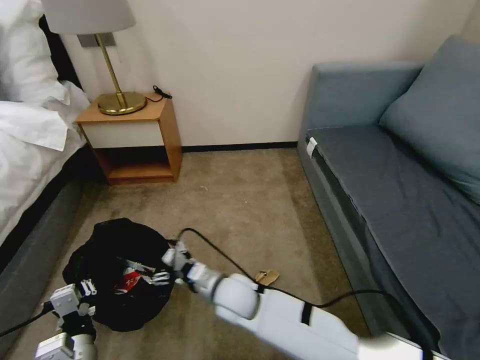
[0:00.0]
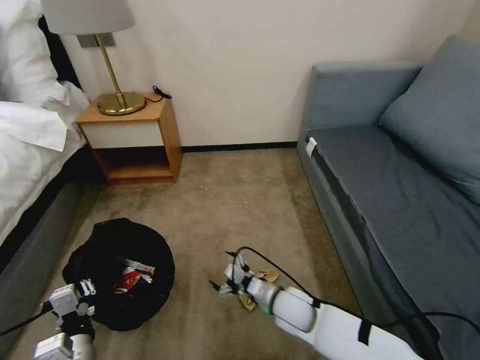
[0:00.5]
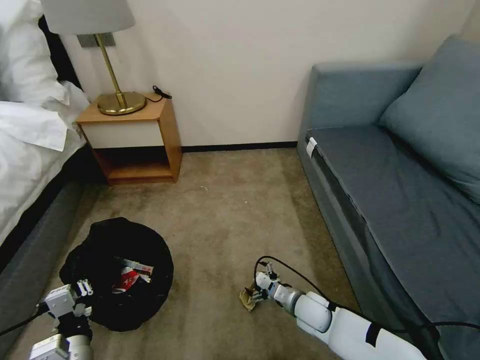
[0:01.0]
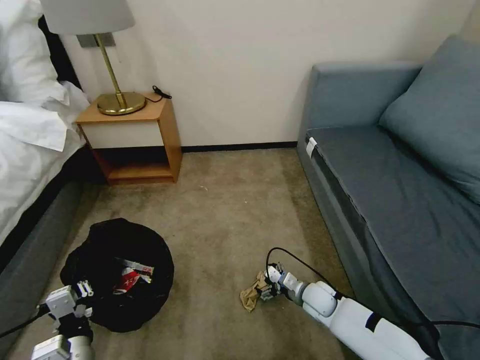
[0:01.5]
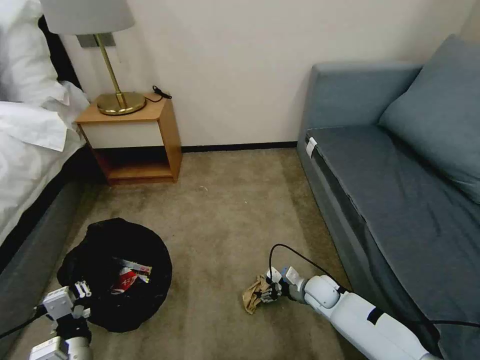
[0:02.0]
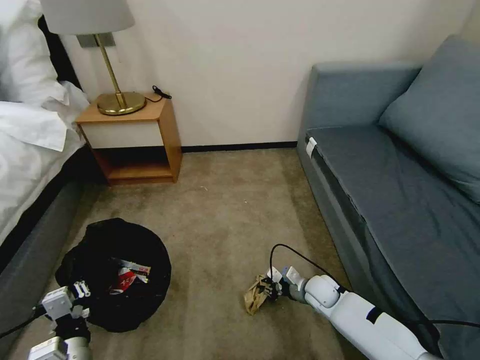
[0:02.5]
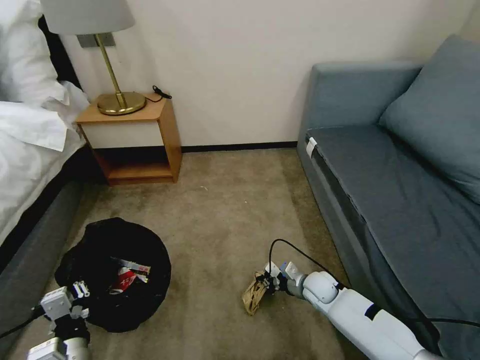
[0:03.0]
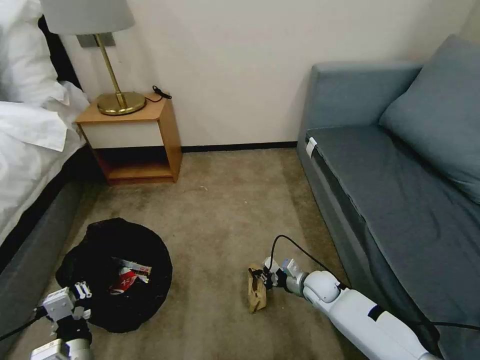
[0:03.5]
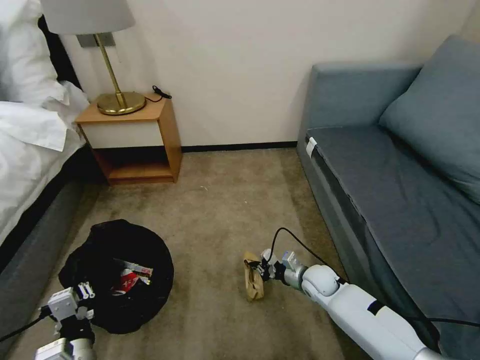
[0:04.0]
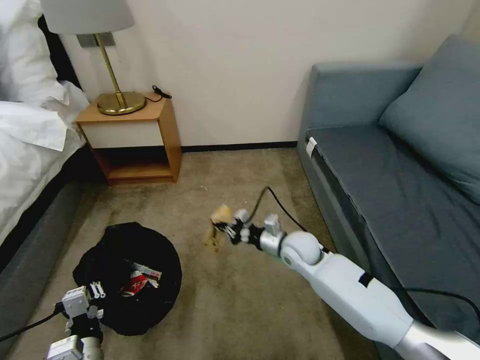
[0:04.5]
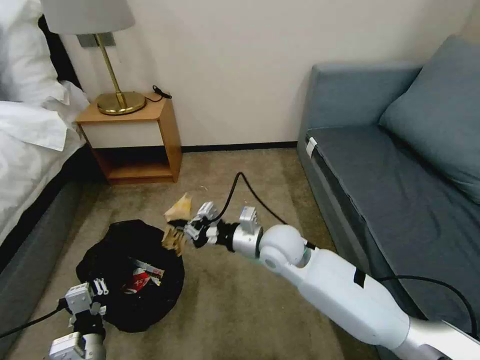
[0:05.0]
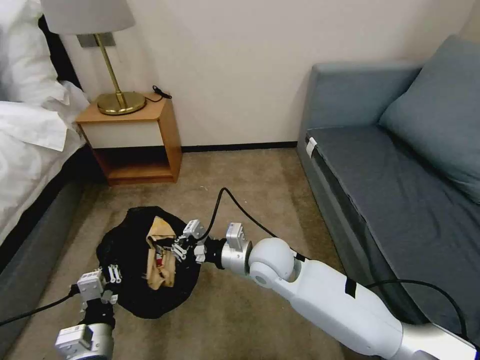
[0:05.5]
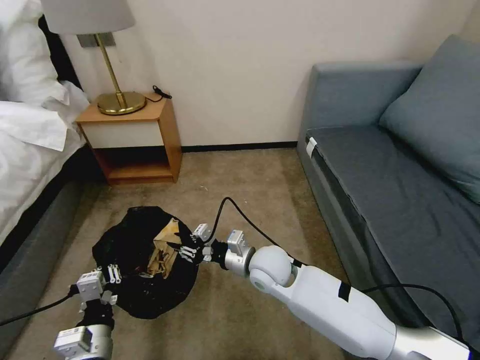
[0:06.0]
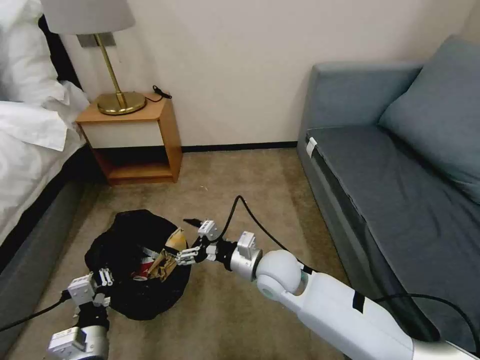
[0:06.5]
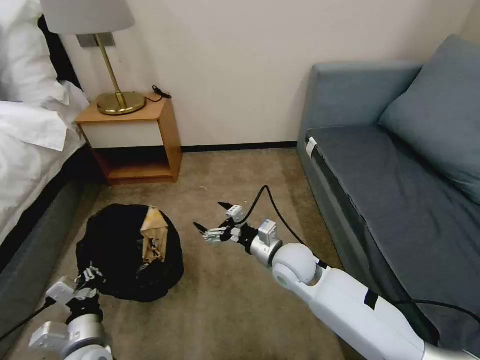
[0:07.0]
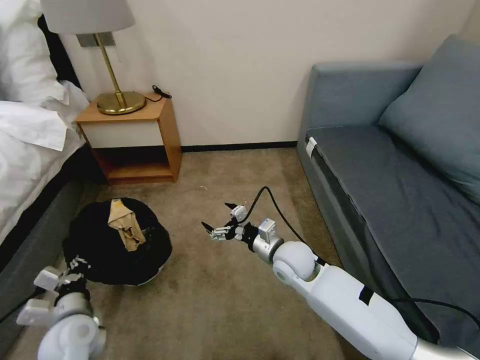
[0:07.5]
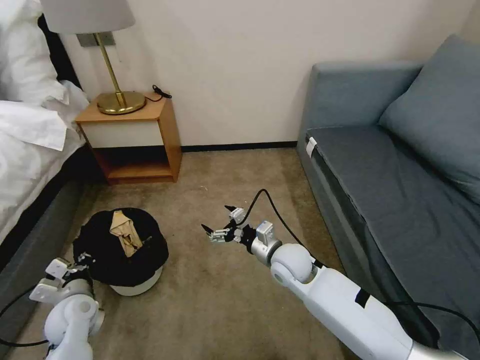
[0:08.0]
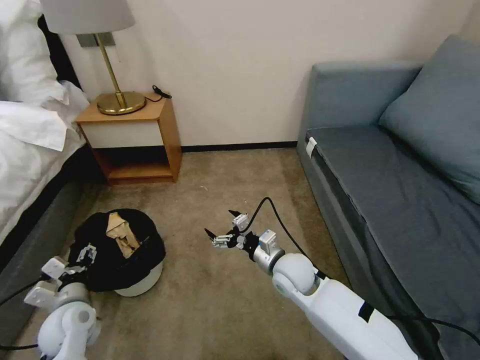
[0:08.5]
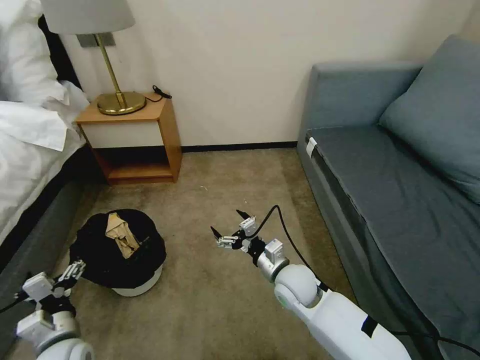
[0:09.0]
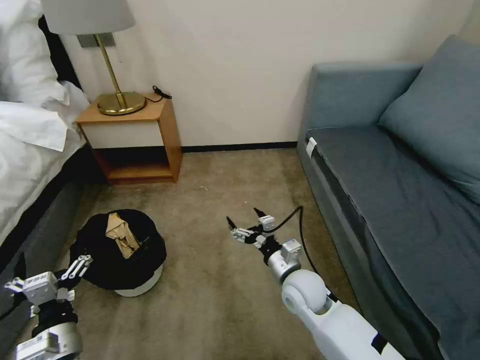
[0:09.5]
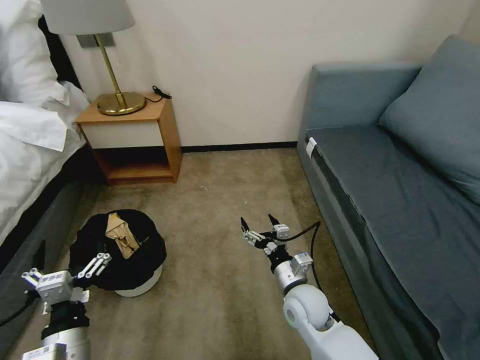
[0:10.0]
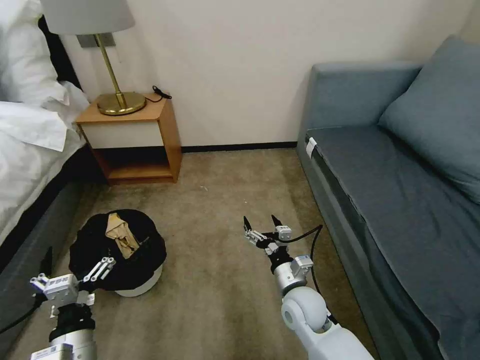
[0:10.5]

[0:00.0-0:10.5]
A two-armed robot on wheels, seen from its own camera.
Task of the whole recording: Pick up the trash bin, then pick up the garbage on the floor and place it into the trash bin.
0:00.0 to 0:02.0: The right gripper is displaced to the right and downward by roughly 30 cm.
0:02.0 to 0:04.0: The right gripper closes.
0:04.0 to 0:06.5: The right gripper moves upward and to the left, roughly 25 cm, and opens up.
0:06.5 to 0:08.5: The left gripper moves forward and to the left, roughly 15 cm, and opens. Meanwhile the right gripper travels downward by some 5 cm.
0:08.5 to 0:10.5: The left gripper is displaced backward and to the right by about 15 cm; the right gripper heads backward, covering approximately 5 cm.

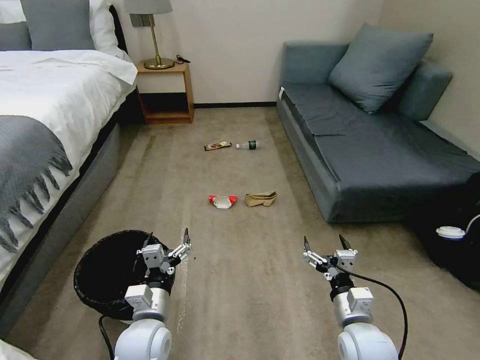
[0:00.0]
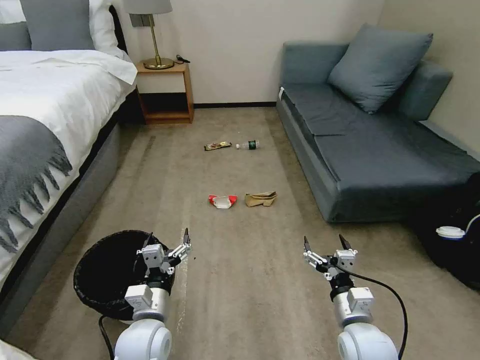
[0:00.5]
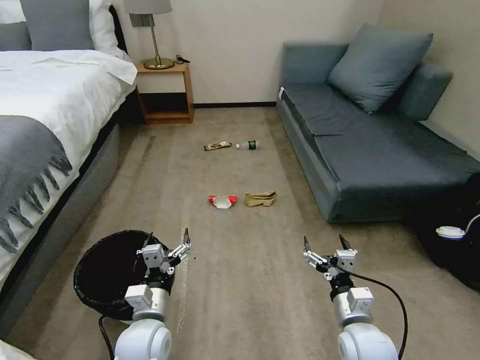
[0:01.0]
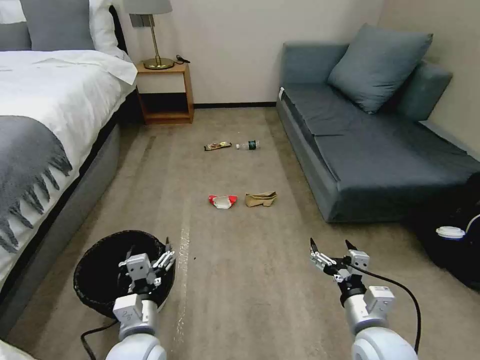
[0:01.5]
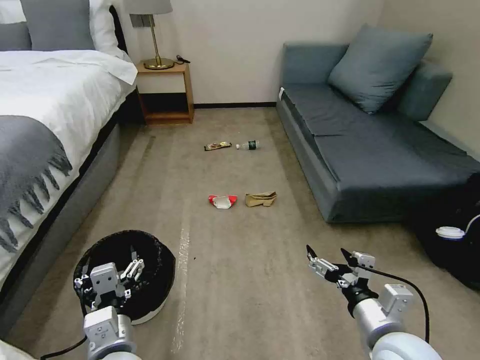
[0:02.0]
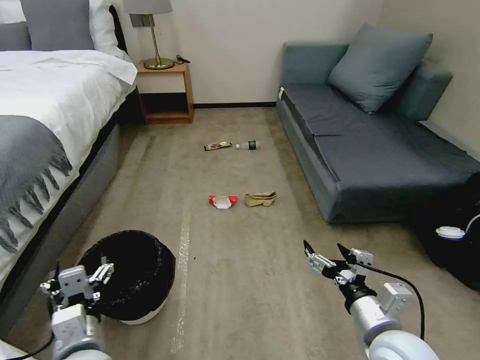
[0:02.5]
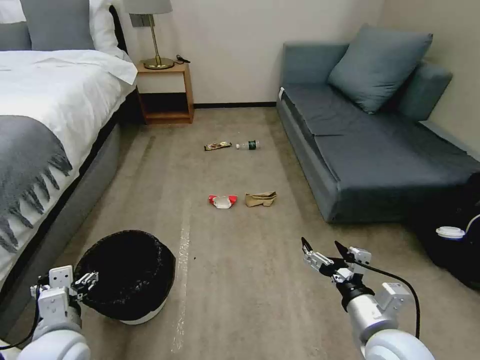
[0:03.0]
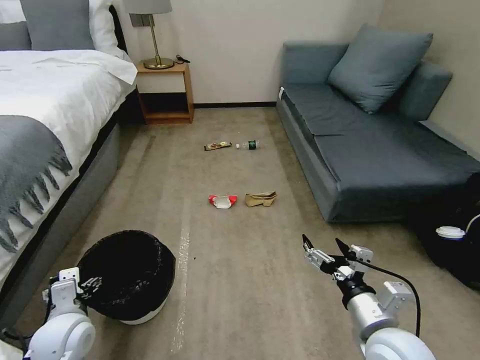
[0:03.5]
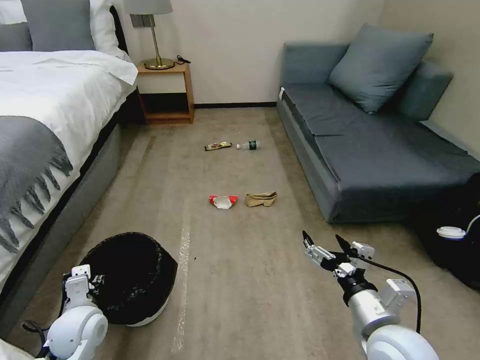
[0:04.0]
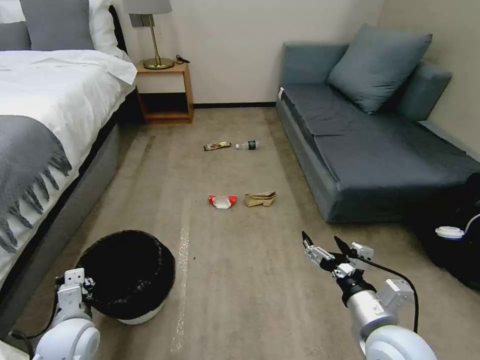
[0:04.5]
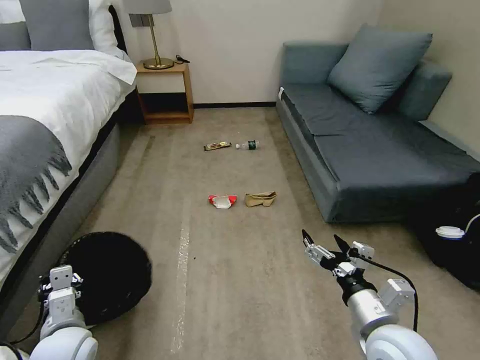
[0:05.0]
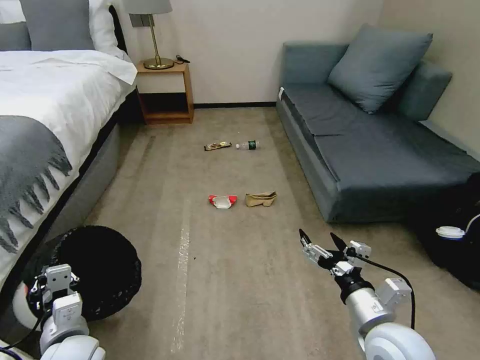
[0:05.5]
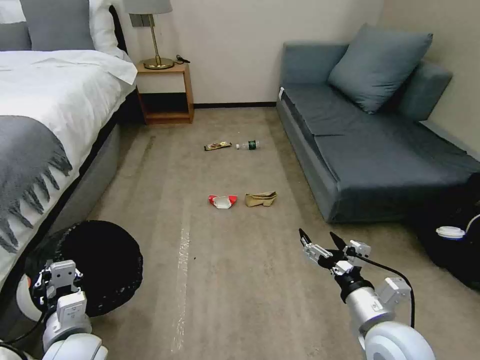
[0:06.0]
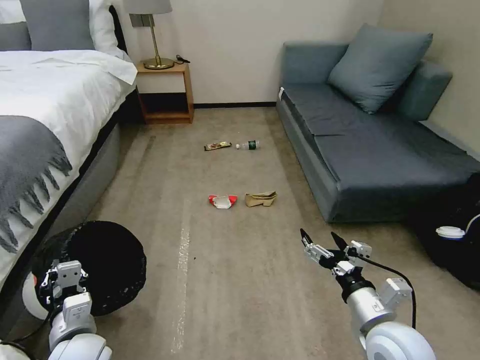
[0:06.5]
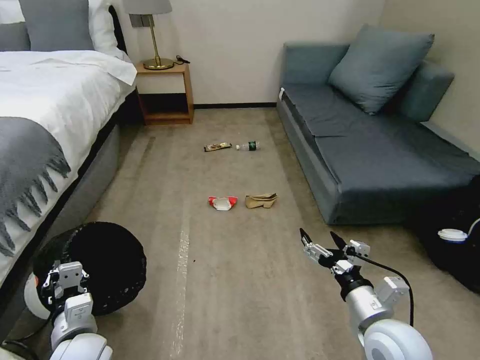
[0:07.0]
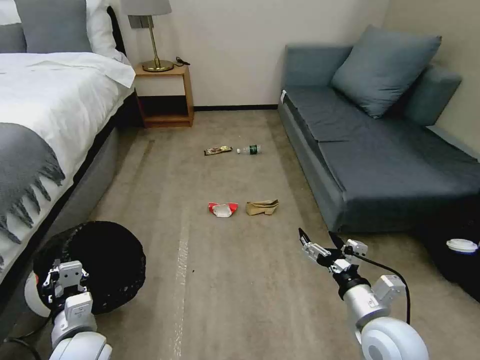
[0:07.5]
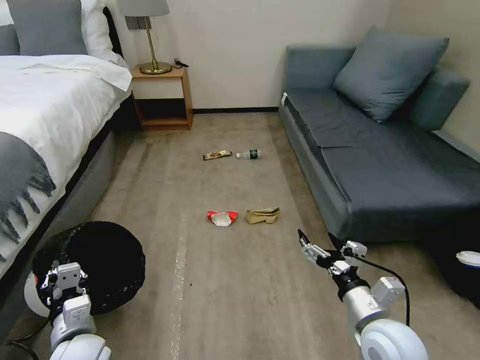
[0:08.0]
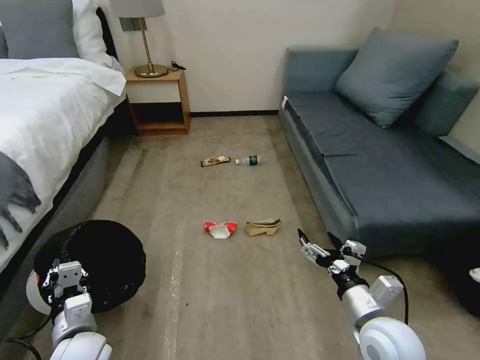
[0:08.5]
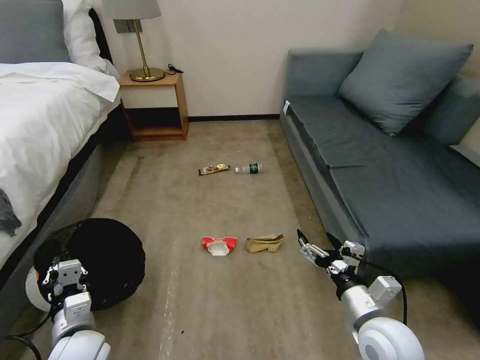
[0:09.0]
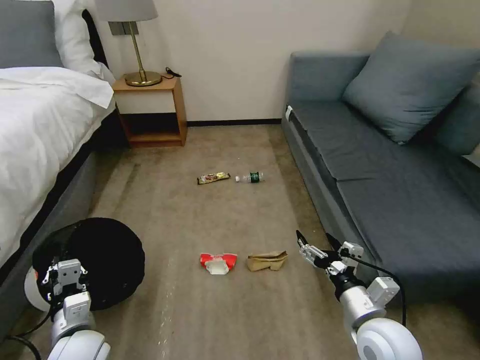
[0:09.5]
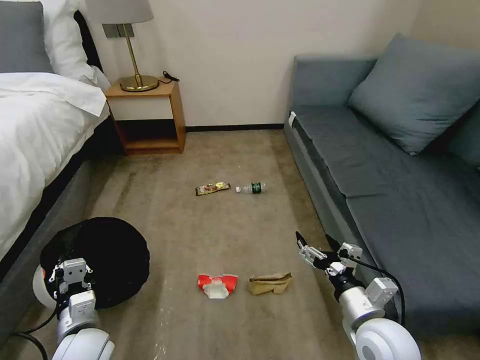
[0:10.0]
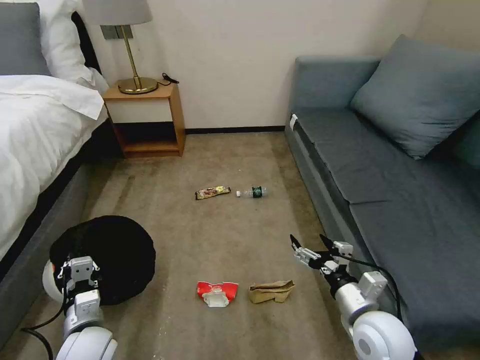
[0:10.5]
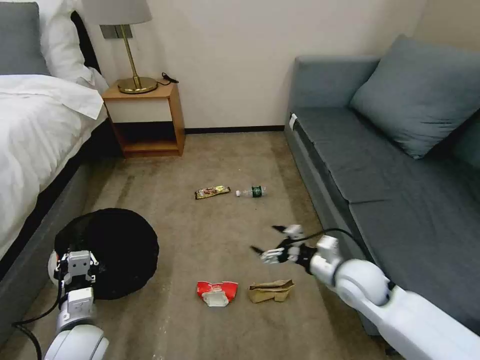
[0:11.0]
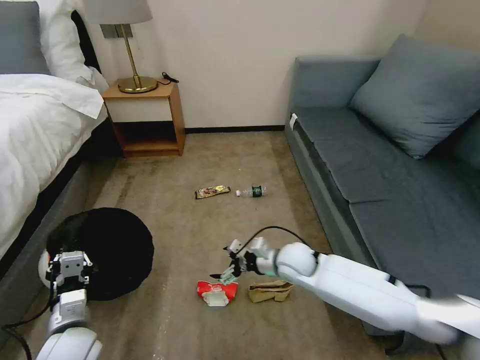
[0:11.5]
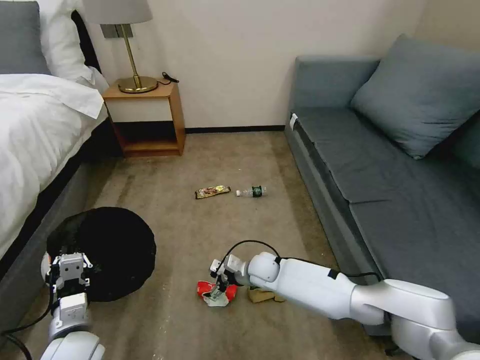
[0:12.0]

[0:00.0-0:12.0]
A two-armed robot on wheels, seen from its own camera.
Task of the whole recording: Pick up the trash bin, then pick up the garbage on the floor and place it into the trash bin.
0:02.0 to 0:04.0: The left gripper shifts roughly 20 cm to the left, forward and downward, and closes its fingers.
0:04.0 to 0:06.0: The left gripper moves backward, about 5 cm, and closes up.
0:10.0 to 0:12.0: The right gripper moves forward, to the left and downward, about 30 cm.

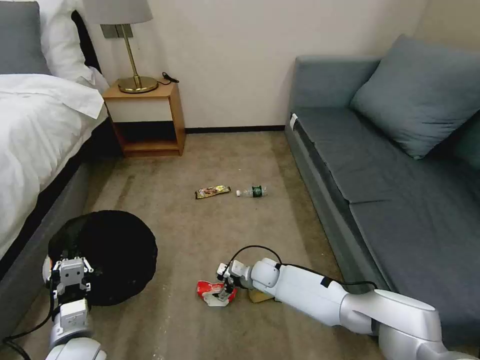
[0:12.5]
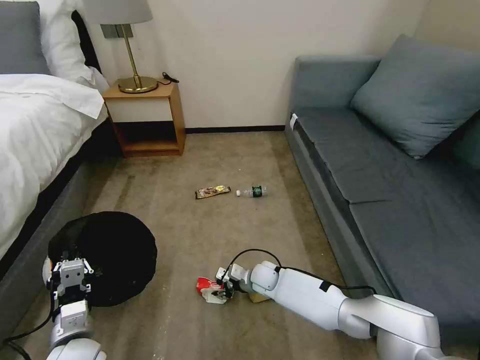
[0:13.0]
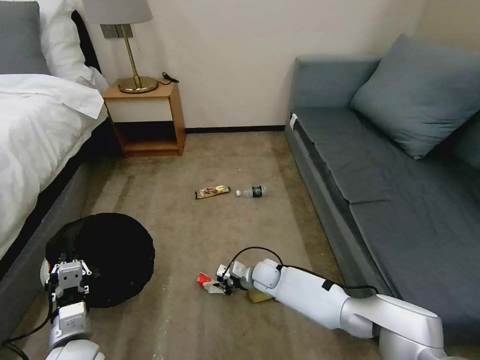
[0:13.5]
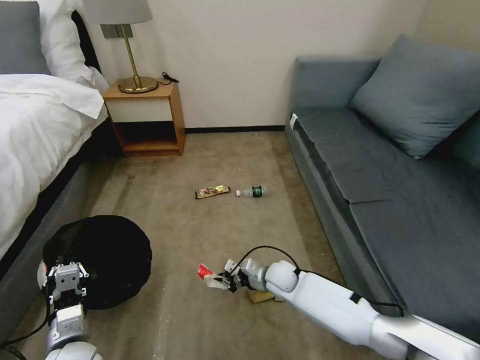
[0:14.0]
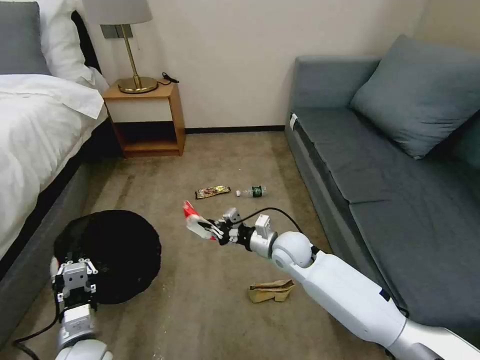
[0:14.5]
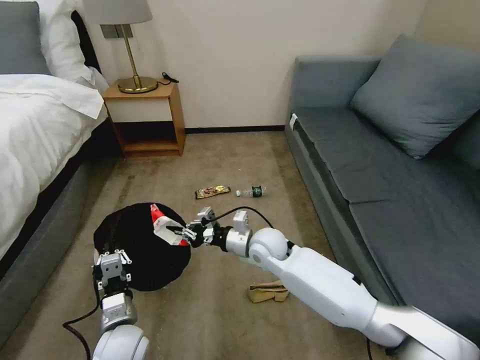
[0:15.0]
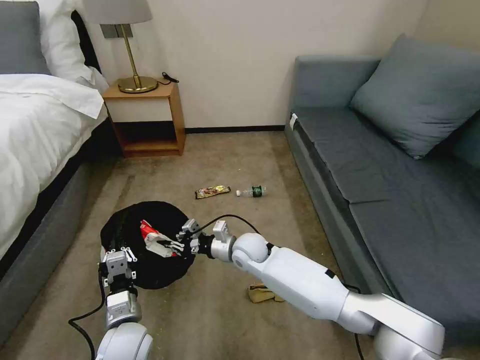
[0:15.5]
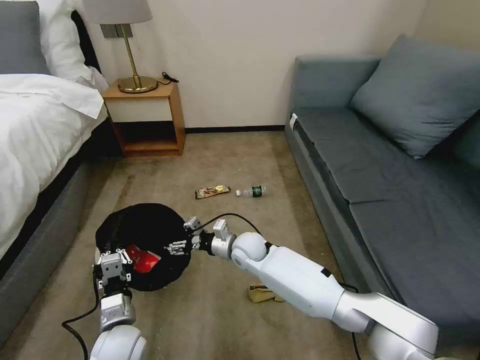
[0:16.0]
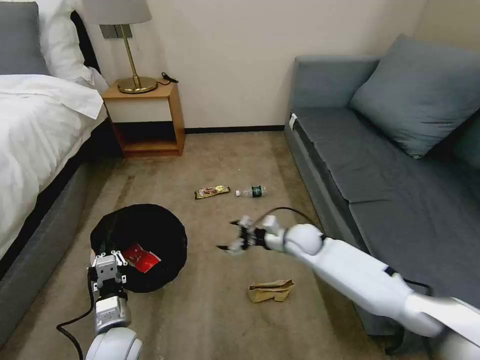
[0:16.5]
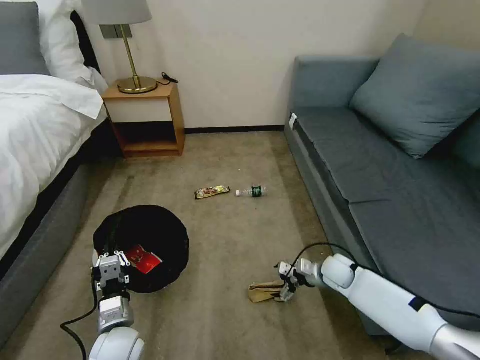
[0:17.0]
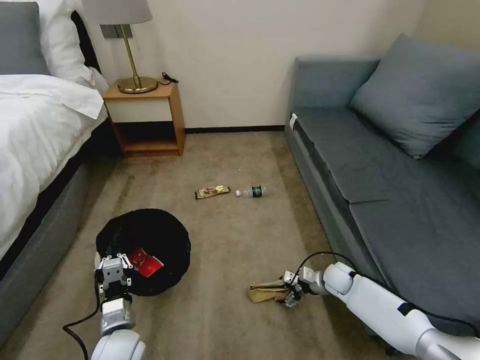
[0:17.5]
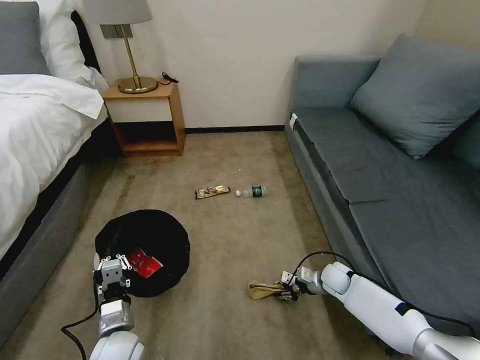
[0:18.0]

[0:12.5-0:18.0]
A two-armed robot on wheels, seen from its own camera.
Task of the whole recording: Pick up the trash bin, then pick up the garbage on the floor and place it into the trash bin.
0:12.5 to 0:14.5: The right gripper moves upward, roughly 15 cm, and closes its fingers.
0:14.5 to 0:16.0: The right gripper heads to the left, covering approximately 10 cm, and opens. Meanwhile the left gripper moves to the right, some 5 cm.
0:16.0 to 0:18.0: The right gripper heads to the right and downward, covering about 30 cm, and closes.
